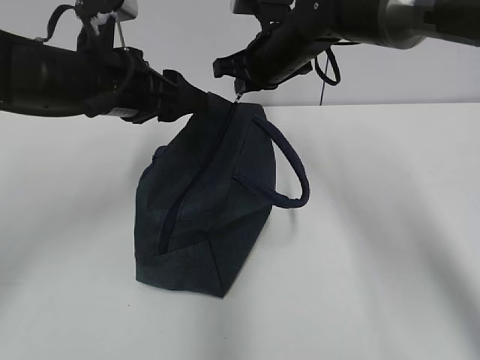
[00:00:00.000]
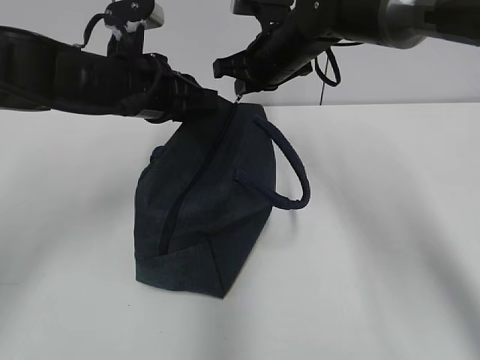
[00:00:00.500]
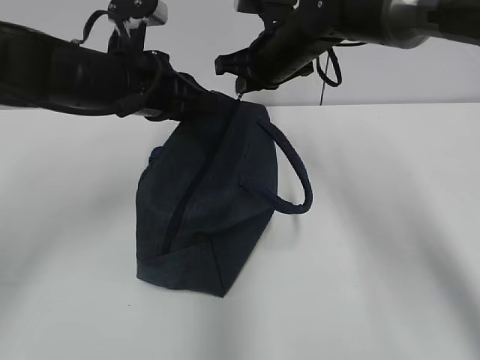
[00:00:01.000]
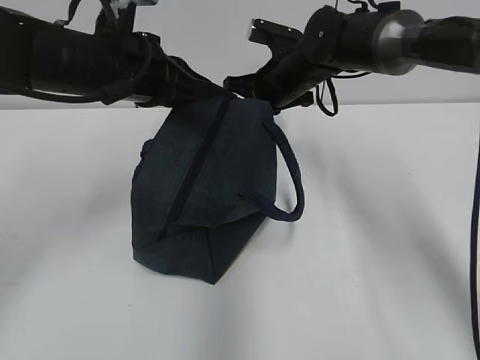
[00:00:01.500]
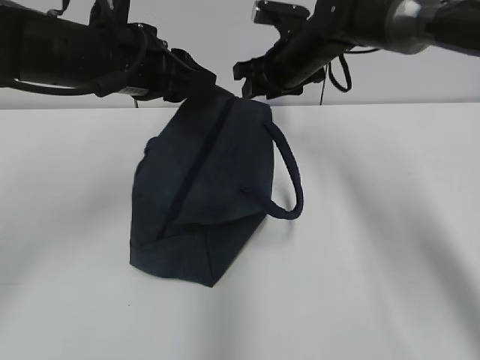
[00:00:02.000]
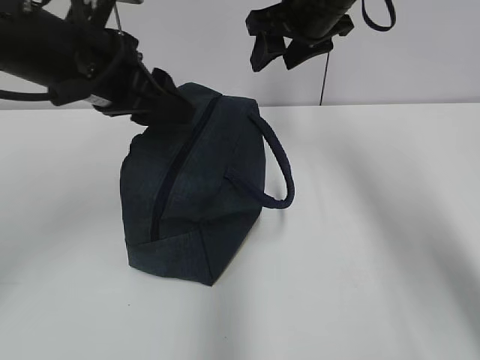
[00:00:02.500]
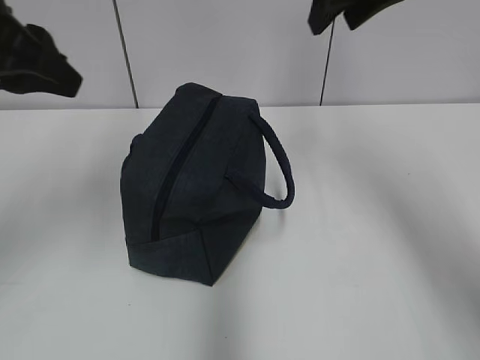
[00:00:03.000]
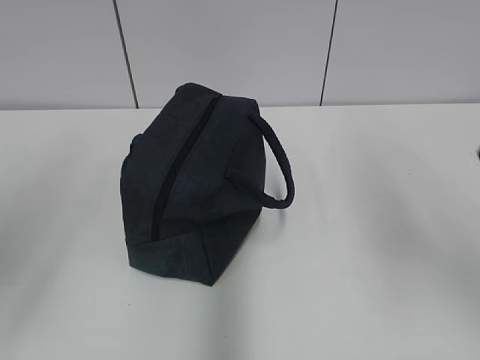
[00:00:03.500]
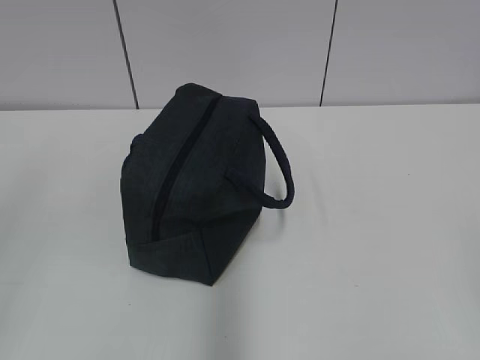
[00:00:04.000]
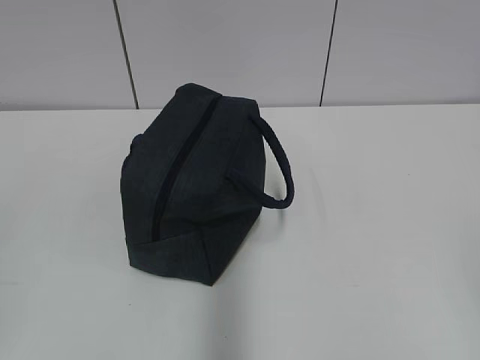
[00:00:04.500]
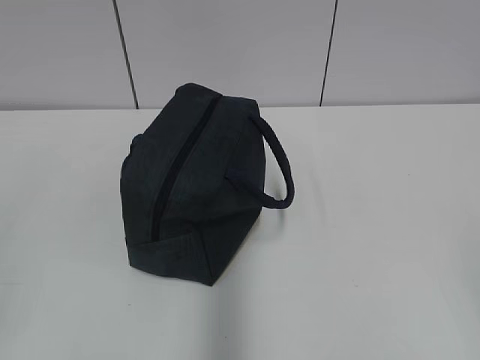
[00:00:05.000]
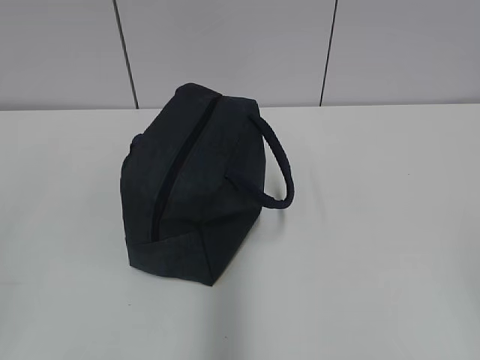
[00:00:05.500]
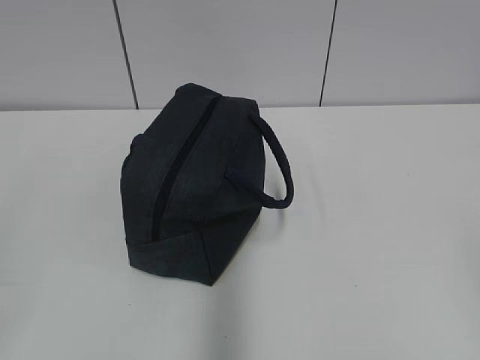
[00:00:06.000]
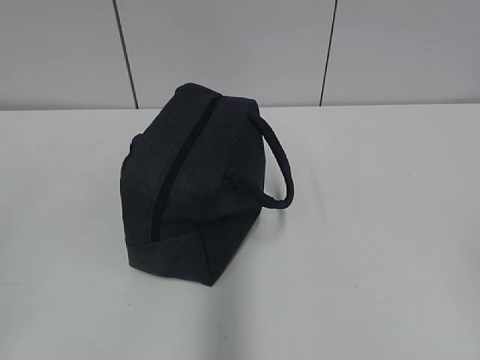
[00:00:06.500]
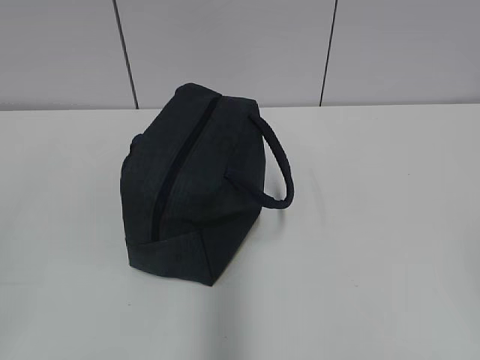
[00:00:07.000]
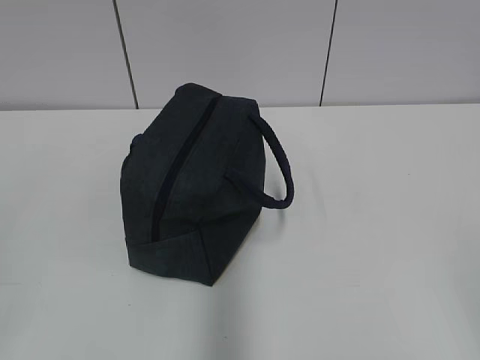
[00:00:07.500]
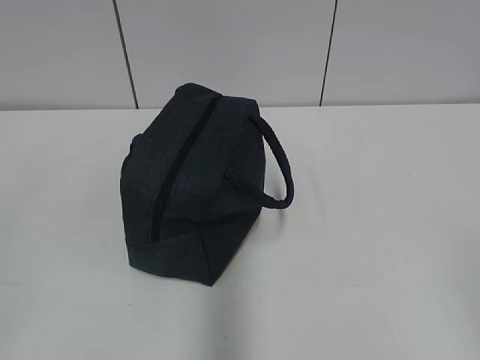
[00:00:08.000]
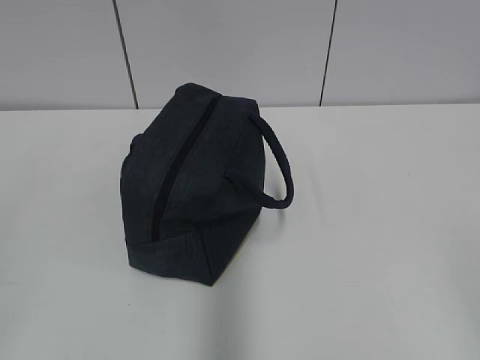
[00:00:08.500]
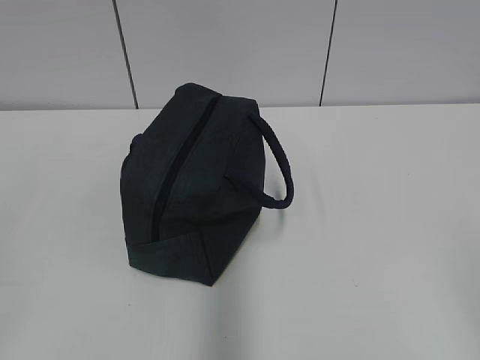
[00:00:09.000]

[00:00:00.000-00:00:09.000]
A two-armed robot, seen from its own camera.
00:00:00.000 to 00:00:02.000: The left gripper closes, then reopens. Meanwhile the right gripper opens its fingers.
00:00:02.000 to 00:00:04.500: The left gripper is displaced backward and to the left by roughly 40 cm. The right gripper heads backward and to the right, covering some 50 cm.
